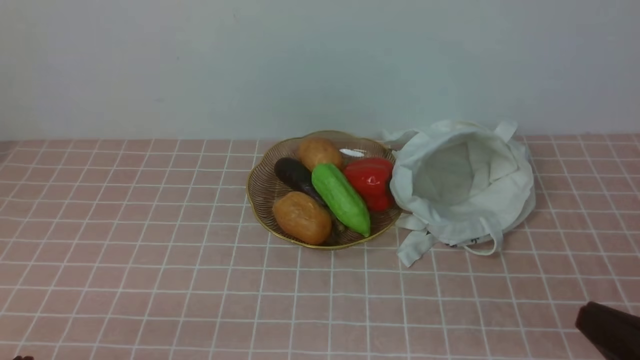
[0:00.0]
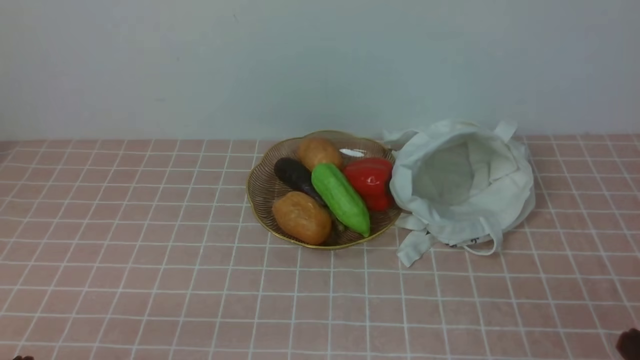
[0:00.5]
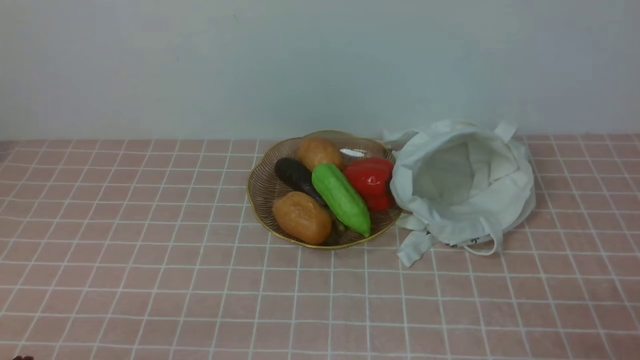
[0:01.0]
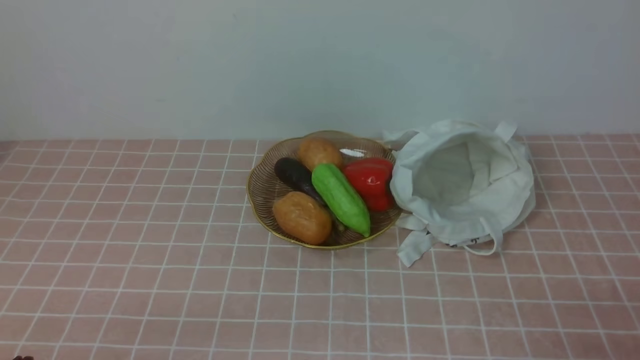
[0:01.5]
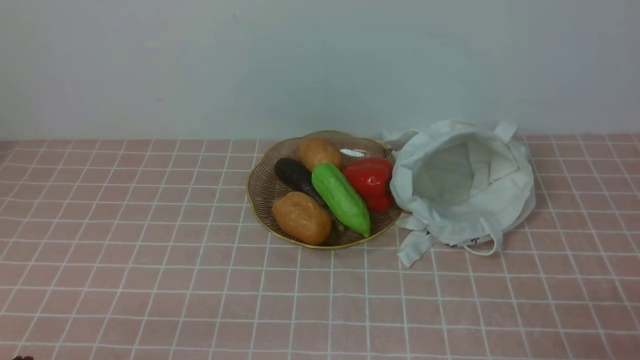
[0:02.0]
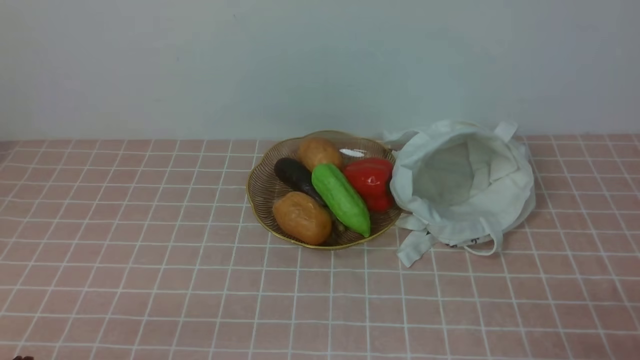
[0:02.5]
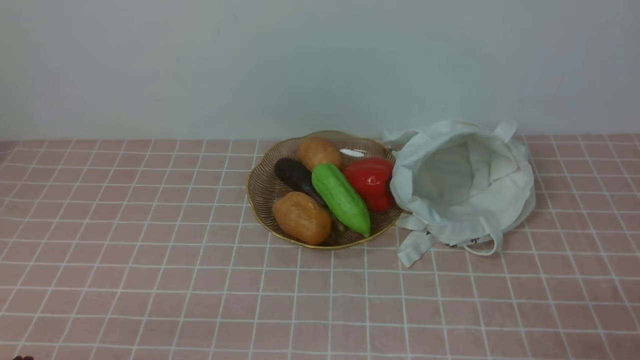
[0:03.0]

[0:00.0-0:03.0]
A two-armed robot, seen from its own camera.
Task of the whole recording: take vegetables from bag on pink coffee tablecloth place on plate.
0:00.0 to 0:01.5: The right gripper shifts roughly 10 cm downward.
0:01.5 to 0:03.0: Both grippers stay put.
